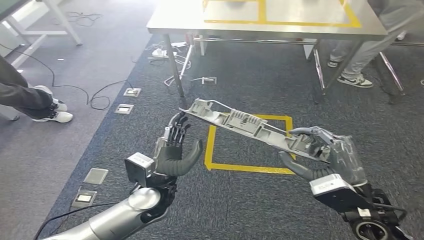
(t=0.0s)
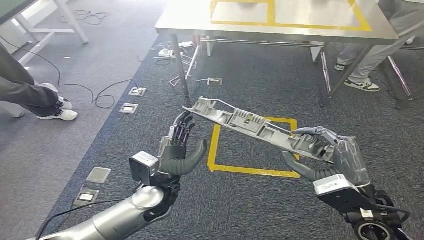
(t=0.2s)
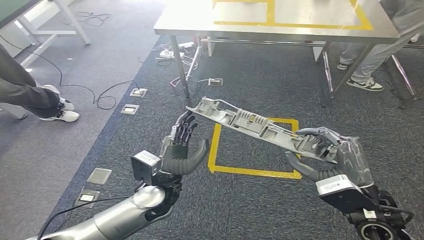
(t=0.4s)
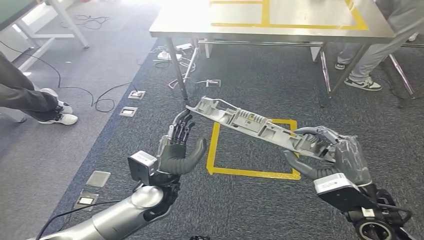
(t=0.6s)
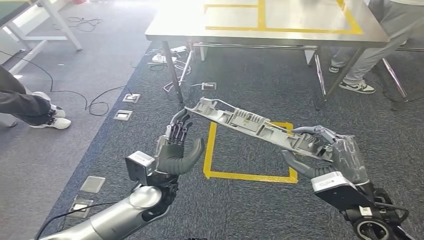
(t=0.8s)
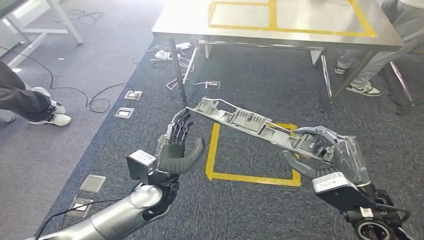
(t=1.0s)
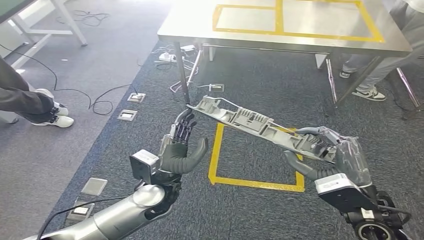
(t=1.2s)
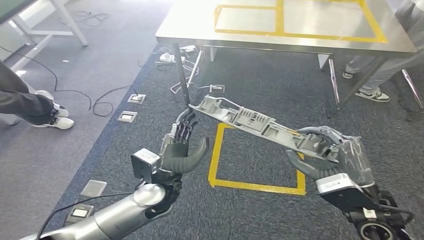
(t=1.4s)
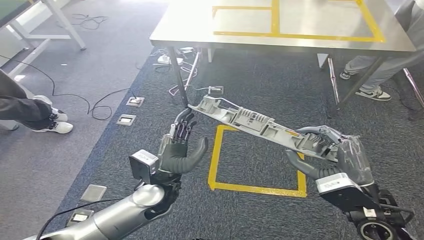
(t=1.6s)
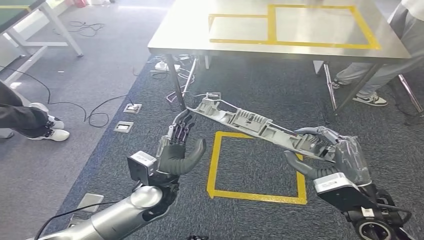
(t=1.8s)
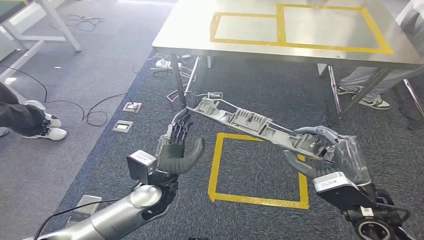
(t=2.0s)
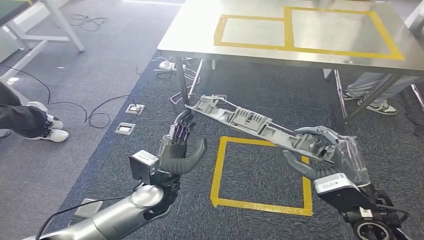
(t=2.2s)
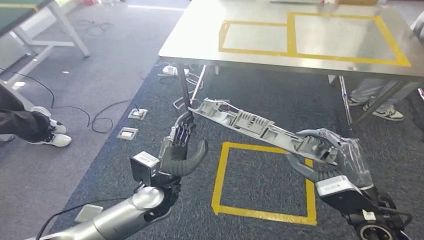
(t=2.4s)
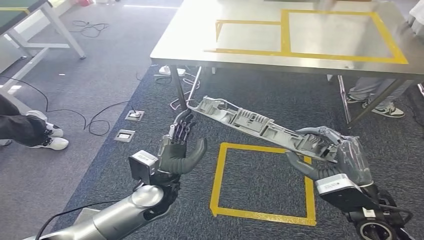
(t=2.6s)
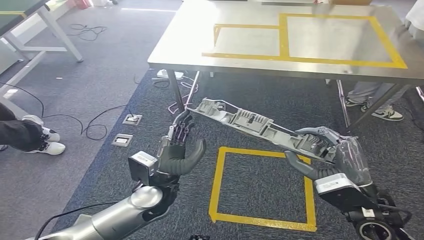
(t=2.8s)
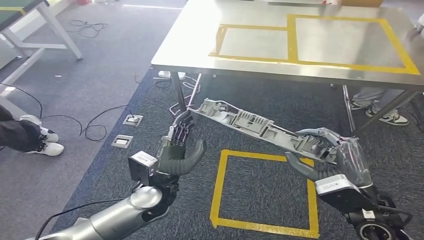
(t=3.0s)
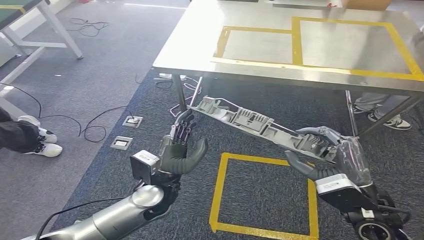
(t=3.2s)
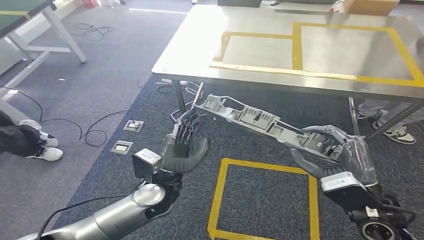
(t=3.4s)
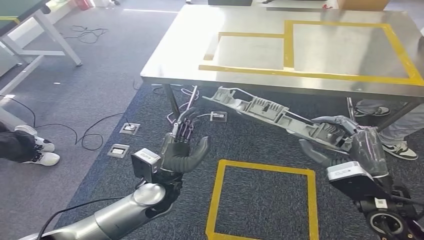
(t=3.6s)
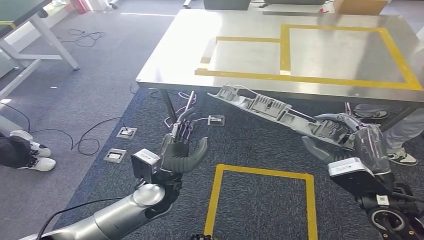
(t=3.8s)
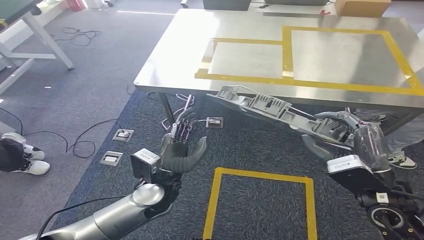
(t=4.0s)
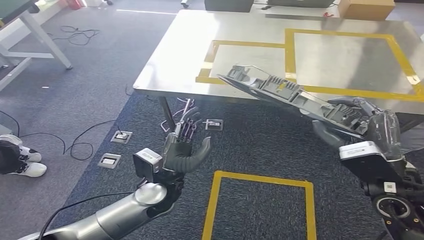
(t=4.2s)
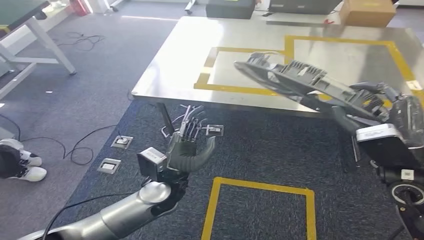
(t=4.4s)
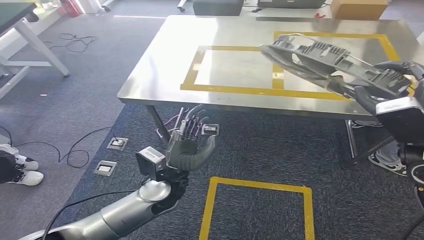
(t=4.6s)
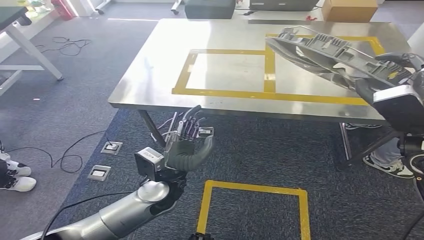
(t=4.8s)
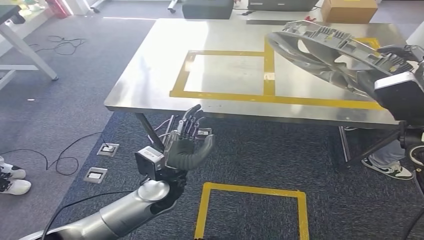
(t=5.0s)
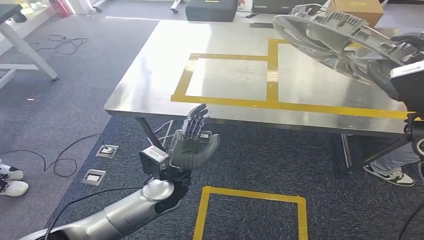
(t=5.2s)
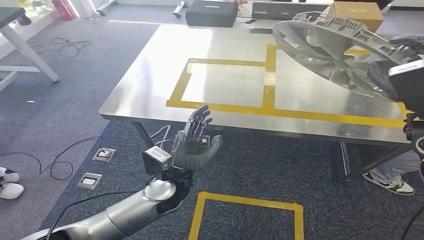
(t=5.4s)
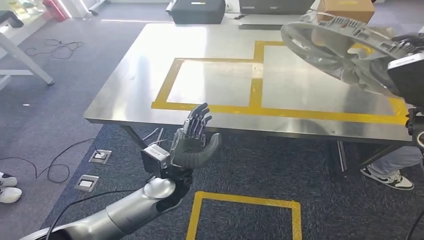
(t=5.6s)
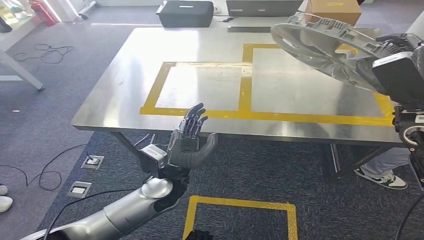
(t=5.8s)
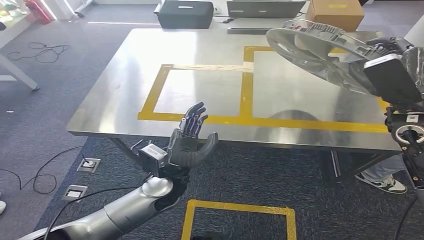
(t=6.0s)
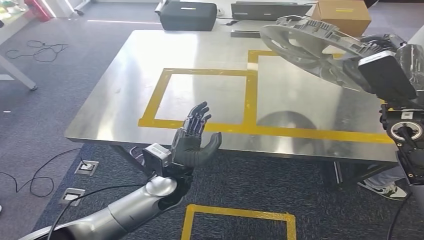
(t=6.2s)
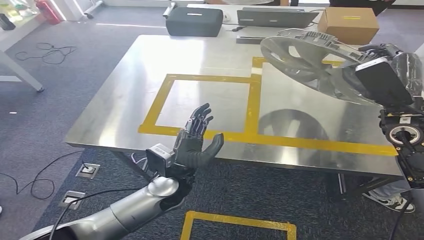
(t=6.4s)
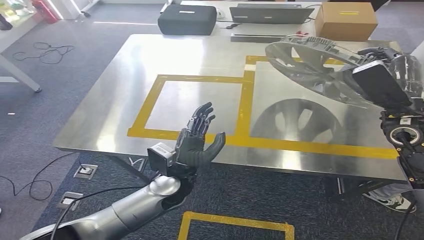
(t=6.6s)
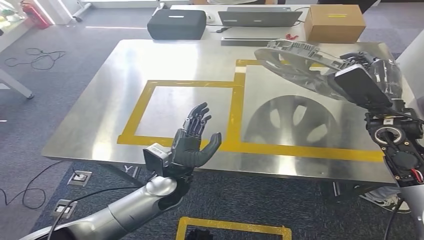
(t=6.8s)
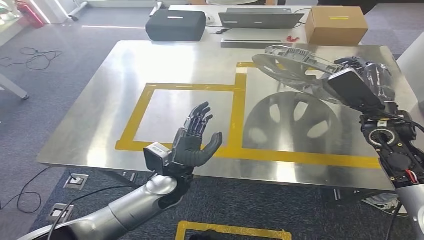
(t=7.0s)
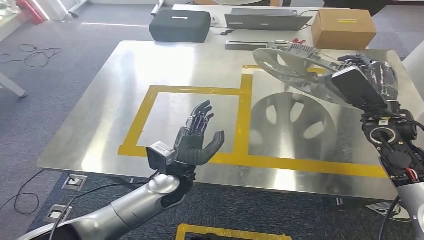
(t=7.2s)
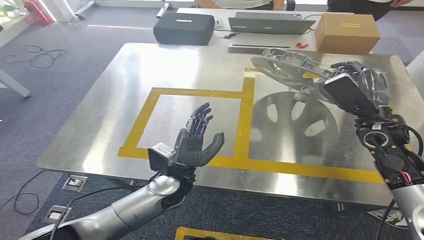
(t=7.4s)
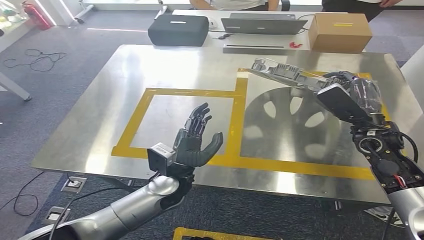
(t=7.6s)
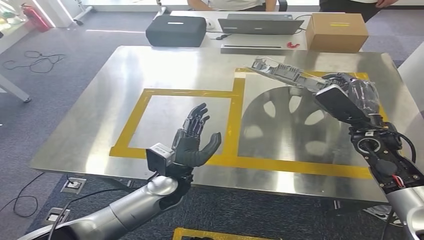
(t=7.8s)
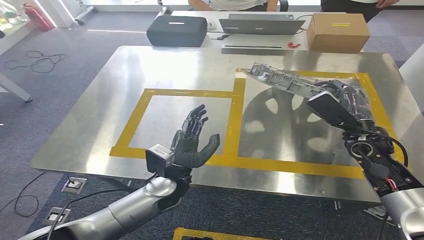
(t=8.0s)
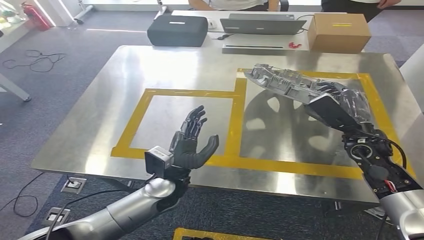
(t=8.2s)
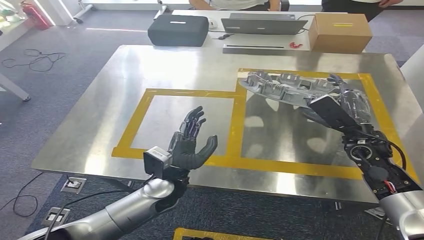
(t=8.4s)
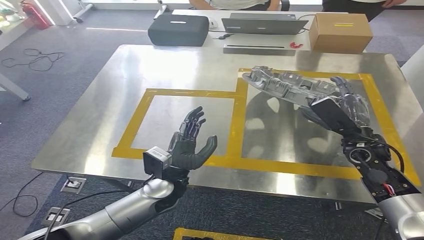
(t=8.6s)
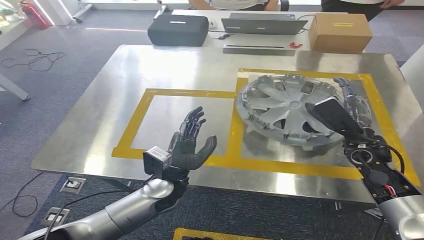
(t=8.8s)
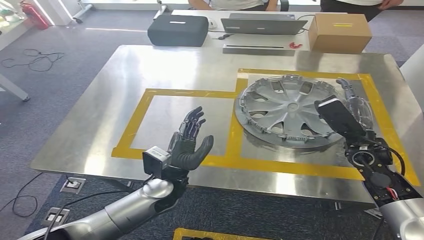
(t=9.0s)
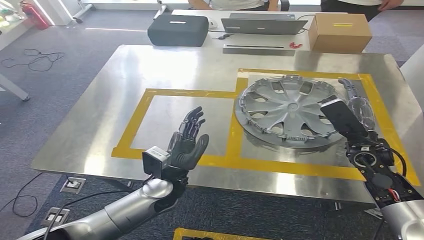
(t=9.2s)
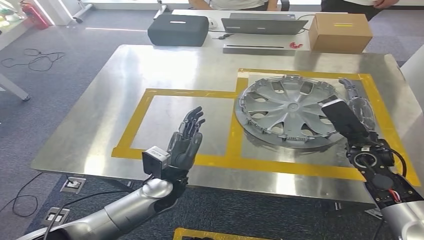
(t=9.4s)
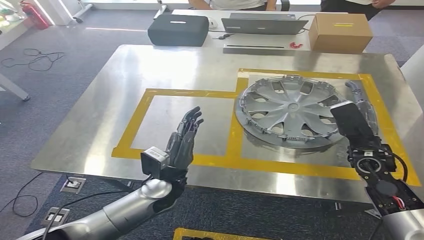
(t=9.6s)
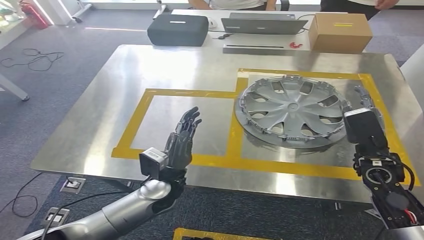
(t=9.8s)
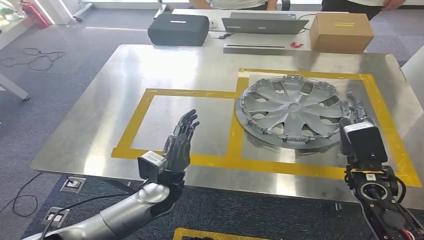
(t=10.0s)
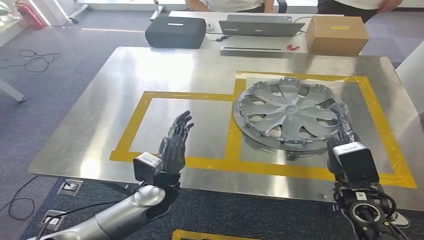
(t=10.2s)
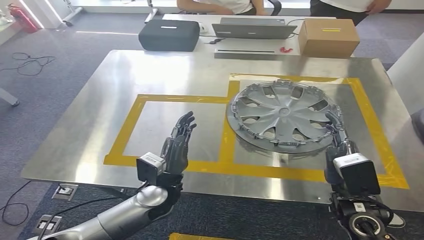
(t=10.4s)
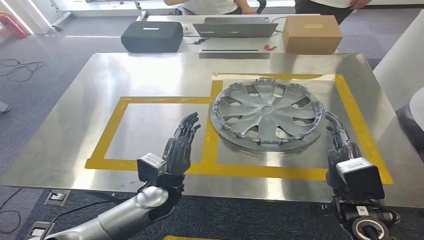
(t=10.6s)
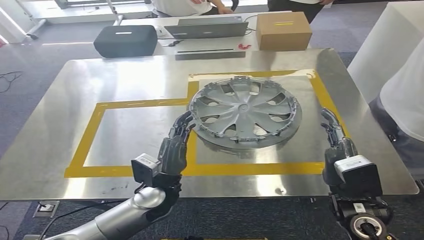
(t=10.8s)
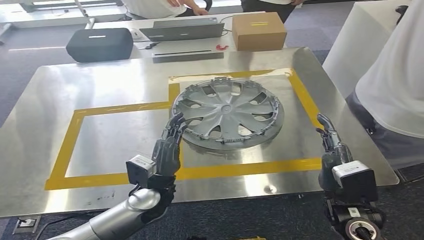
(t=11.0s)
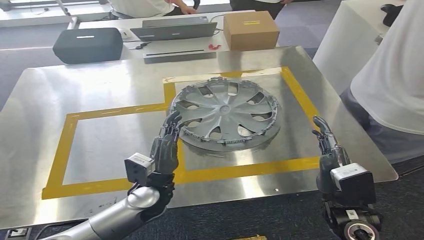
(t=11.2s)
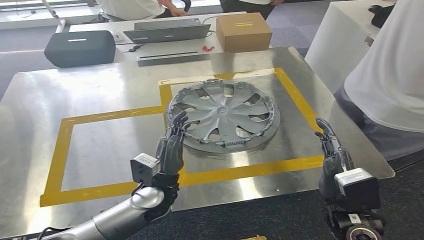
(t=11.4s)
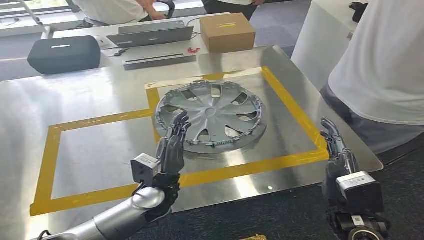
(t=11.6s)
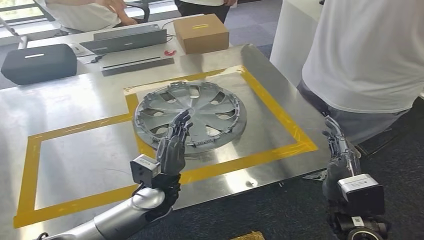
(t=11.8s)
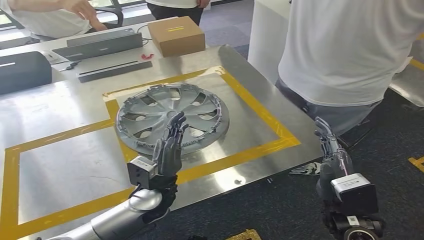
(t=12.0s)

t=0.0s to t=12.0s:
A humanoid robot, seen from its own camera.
Step, t=0.0s to t=6.2s: Move the small parts to the workbench.
Step, t=6.6s to t=11.6s: Insert the small parts into the corresponding holes on the workbench.
t=7.6s to t=9.0s: The right hand changes place by roughly 5 cm.

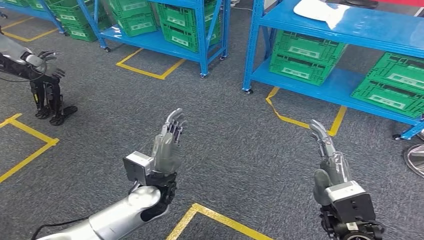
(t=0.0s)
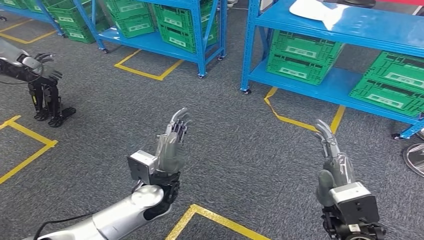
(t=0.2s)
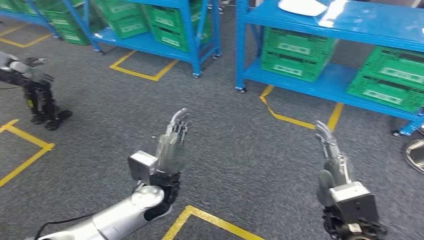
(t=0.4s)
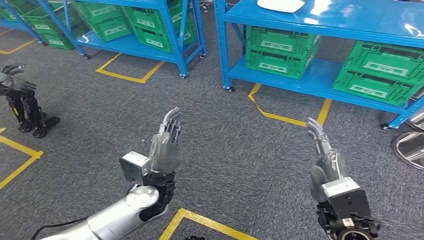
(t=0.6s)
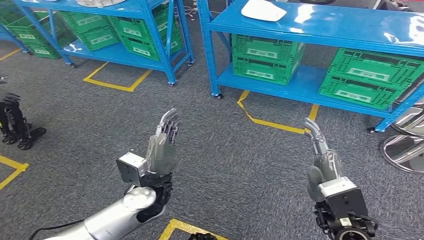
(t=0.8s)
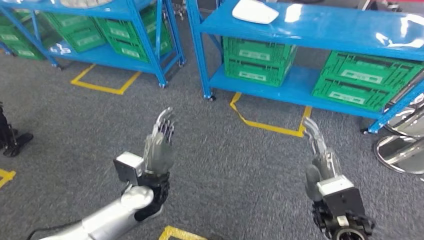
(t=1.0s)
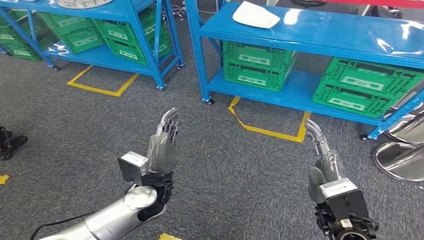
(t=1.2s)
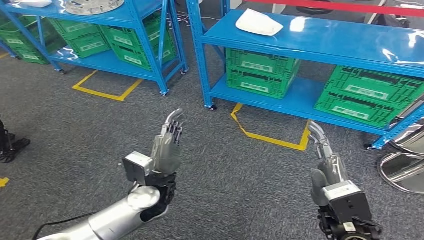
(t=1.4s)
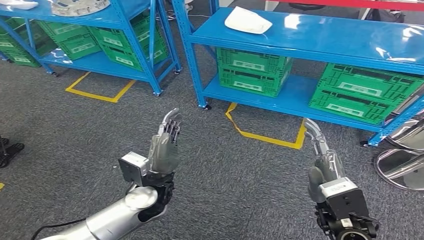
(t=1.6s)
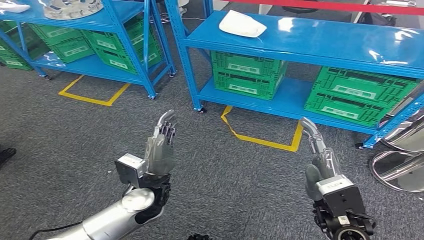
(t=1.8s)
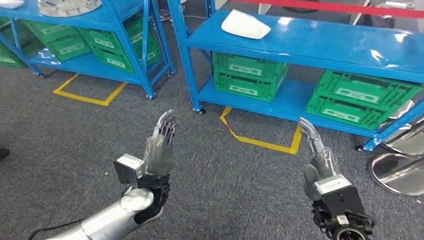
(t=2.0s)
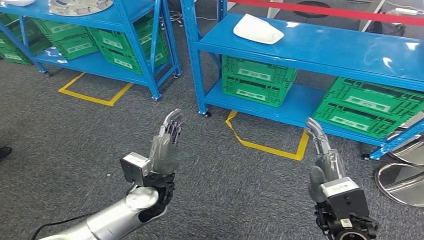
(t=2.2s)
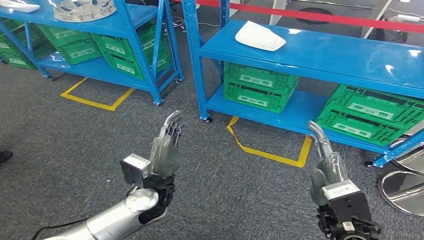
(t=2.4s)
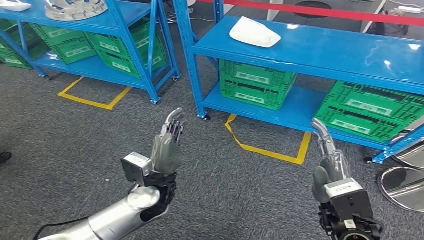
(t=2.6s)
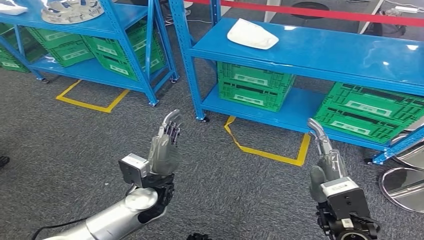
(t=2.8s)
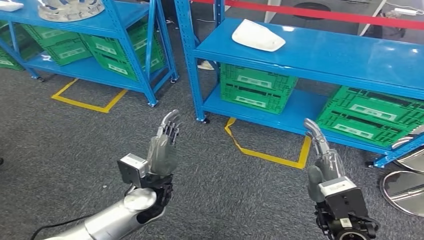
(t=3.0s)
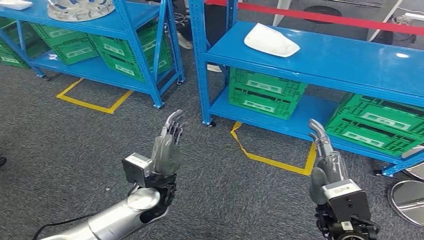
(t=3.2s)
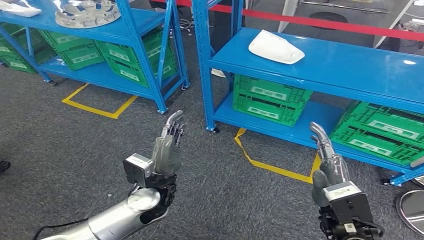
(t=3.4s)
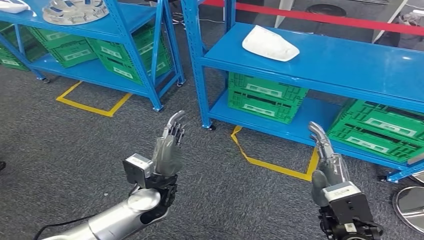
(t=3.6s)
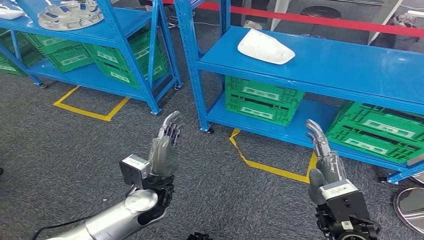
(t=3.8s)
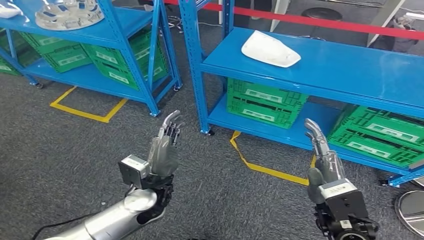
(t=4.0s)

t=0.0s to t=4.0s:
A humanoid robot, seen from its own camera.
Step, t=0.0s to t=4.0s: Move to the initial position at the workbench.
